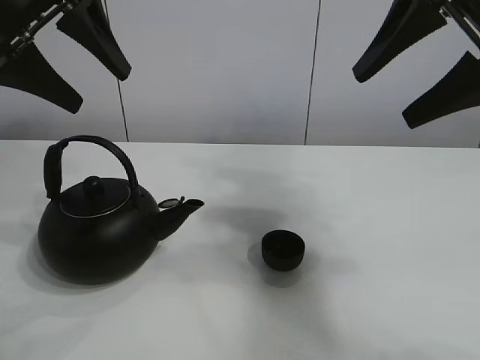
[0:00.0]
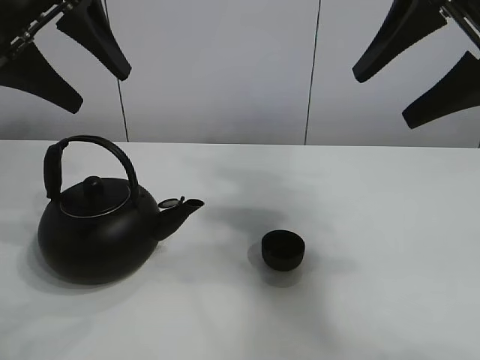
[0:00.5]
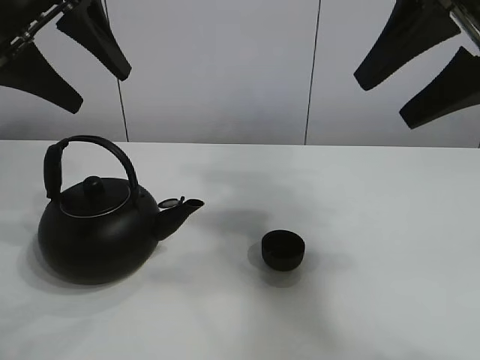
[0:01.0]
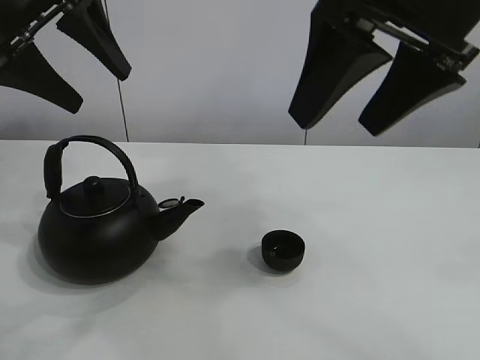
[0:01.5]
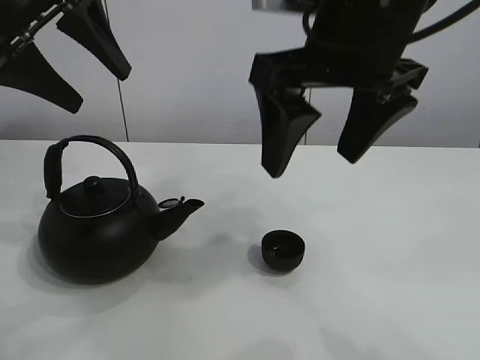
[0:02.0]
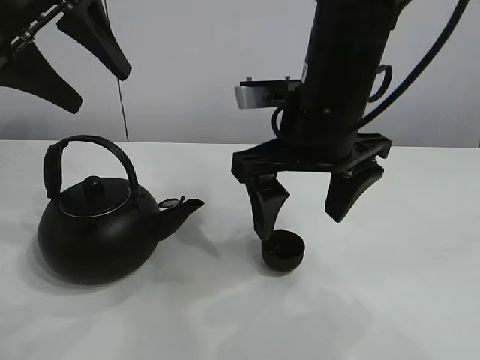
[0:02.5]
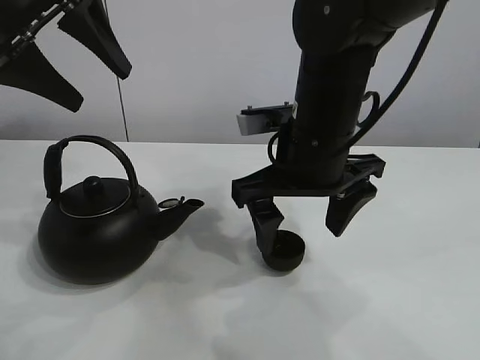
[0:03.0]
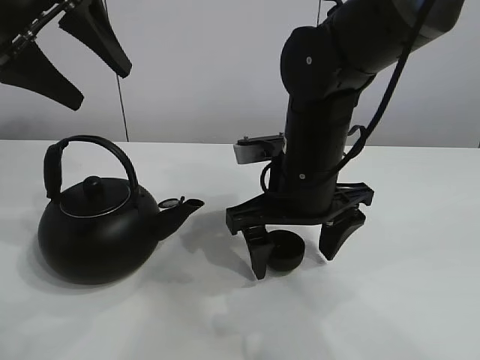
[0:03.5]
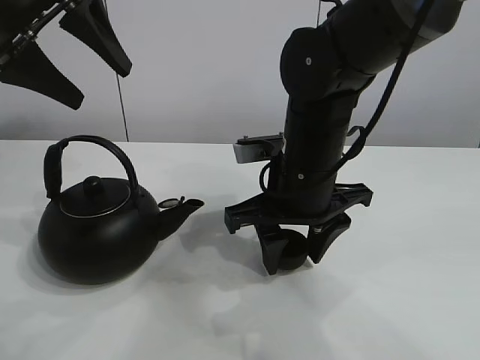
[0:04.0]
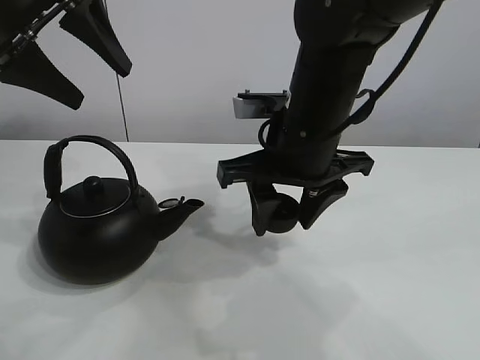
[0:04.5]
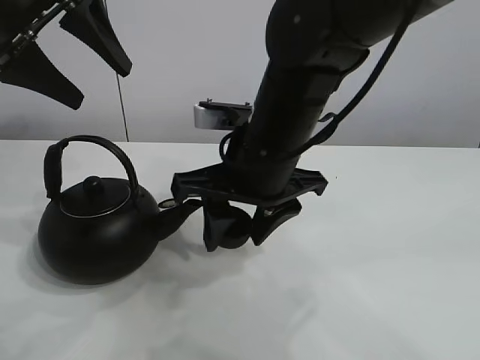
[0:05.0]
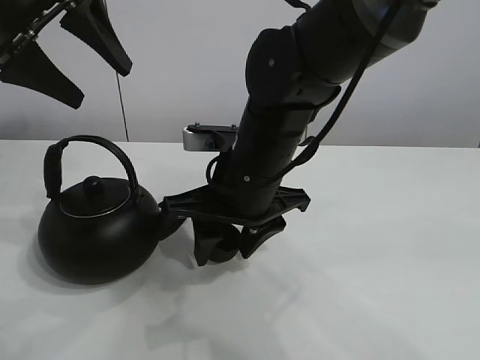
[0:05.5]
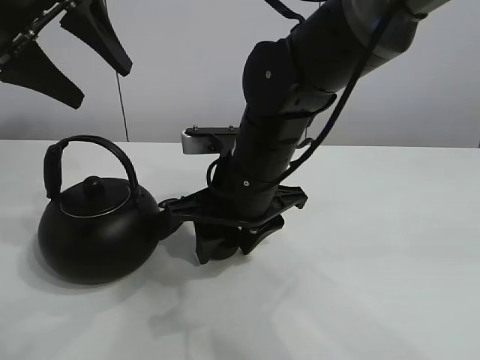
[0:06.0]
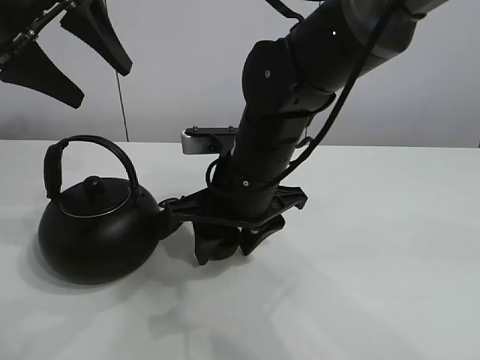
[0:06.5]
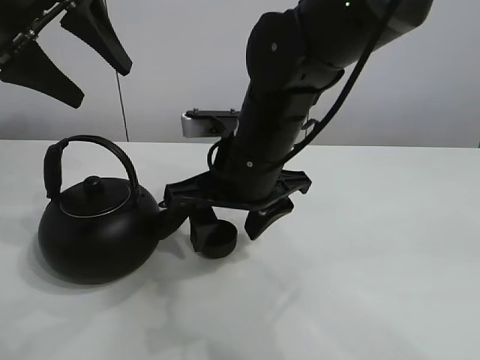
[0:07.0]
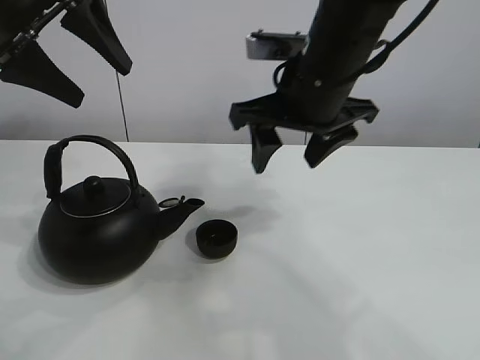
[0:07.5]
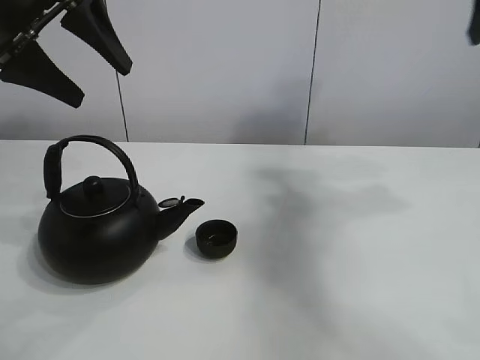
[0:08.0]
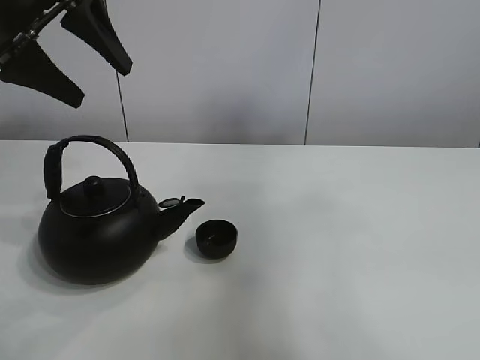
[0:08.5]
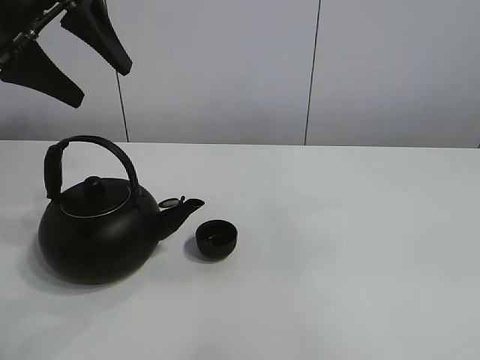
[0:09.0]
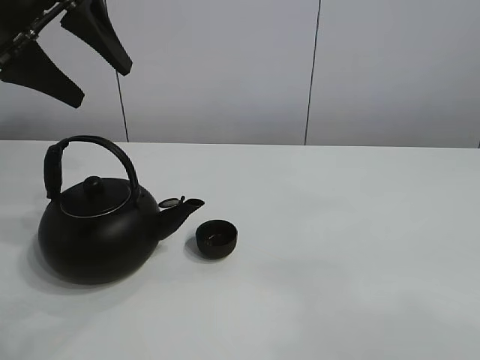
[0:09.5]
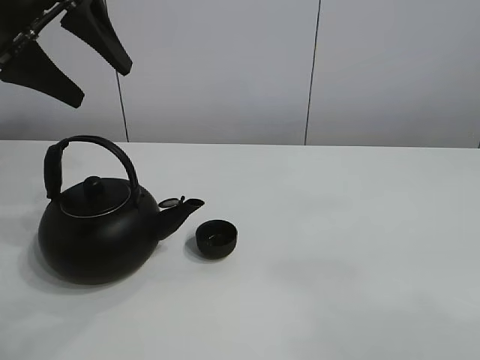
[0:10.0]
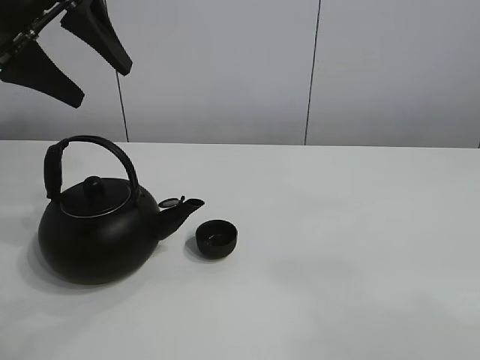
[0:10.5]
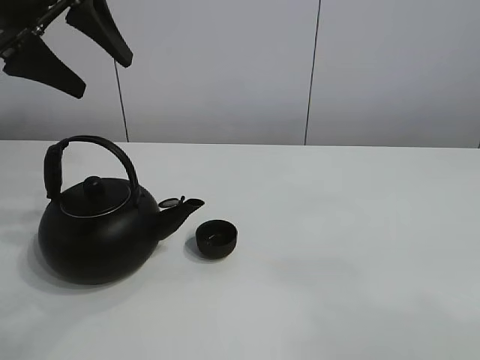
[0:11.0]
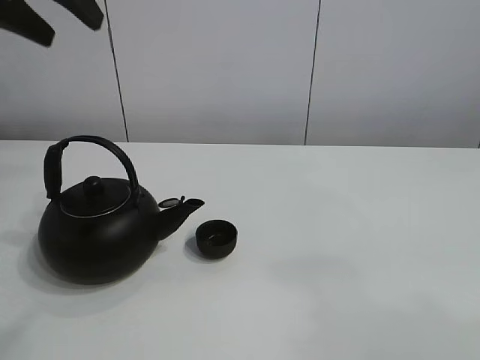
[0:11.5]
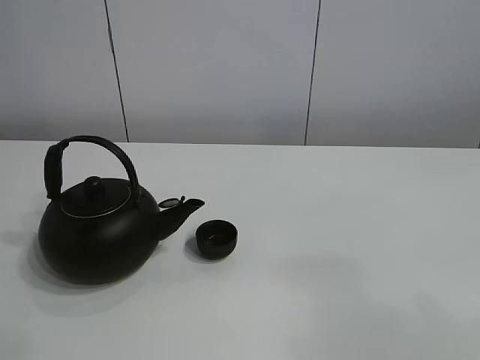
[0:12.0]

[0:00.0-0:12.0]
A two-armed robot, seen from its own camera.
Task of the whole recording: pour tea into the teacup.
Step, 0:00.0 to 0:04.0: Pick up the teacup with the right gripper.
Step, 0:04.5 to 0:06.5: Place the teacup in the center of view with the right gripper.
0:02.0 to 0:04.0: The right gripper heads downward, covering some 15 cm, and closes its fingers.
0:04.0 to 0:06.0: The right gripper travels to the left by roughly 5 cm.
0:06.0 to 0:08.0: The right gripper is displaced to the right and upward by about 35 cm, and opens its fingers.
0:08.0 to 0:10.0: The right gripper is displaced backward by approximately 35 cm.
0:10.0 to 0:12.0: The left gripper moves upward and backward, approximately 20 cm.

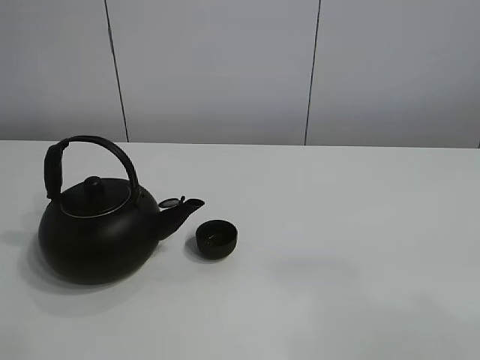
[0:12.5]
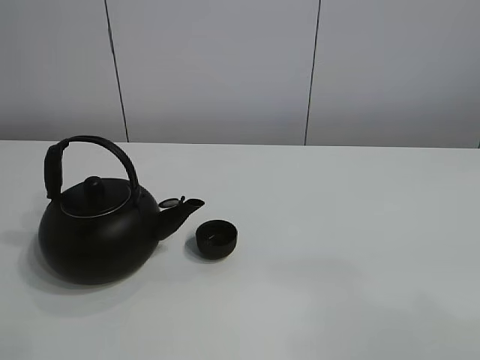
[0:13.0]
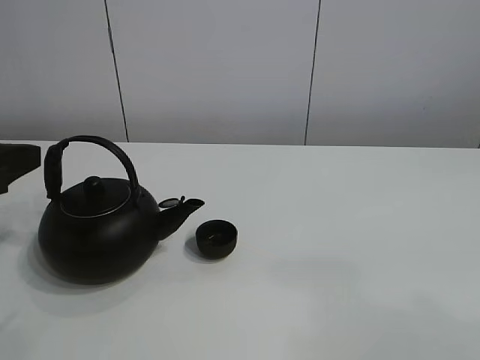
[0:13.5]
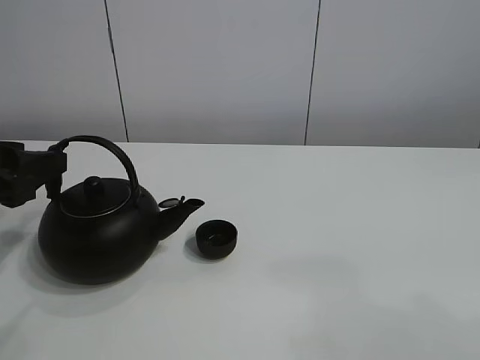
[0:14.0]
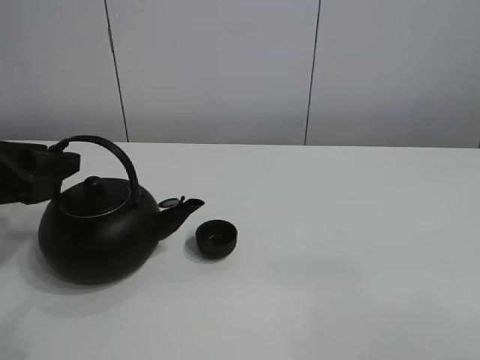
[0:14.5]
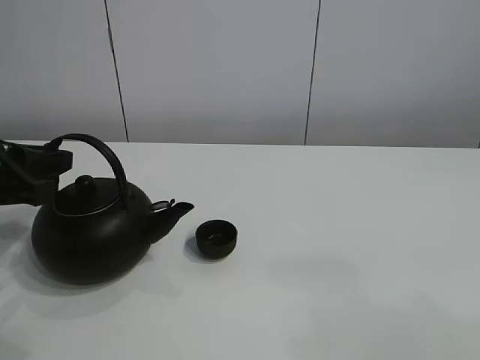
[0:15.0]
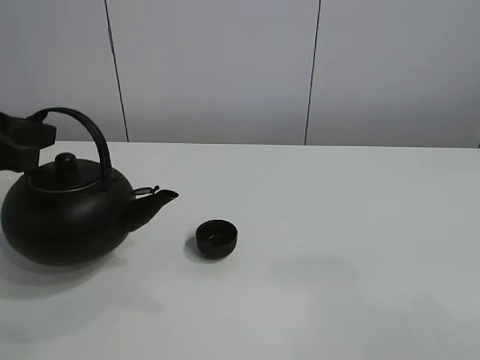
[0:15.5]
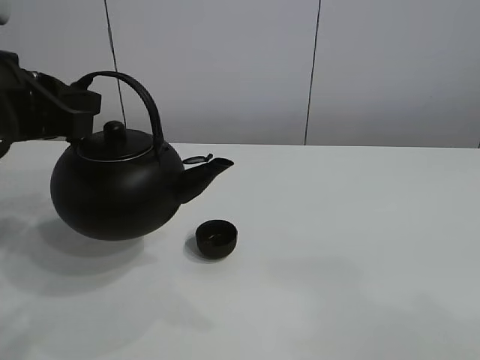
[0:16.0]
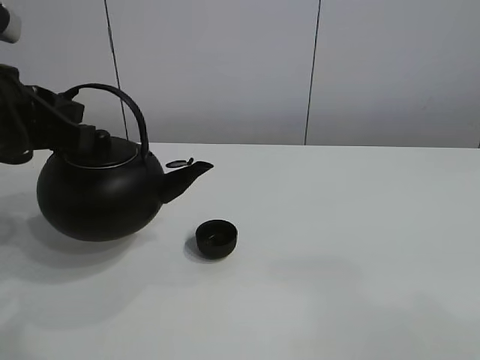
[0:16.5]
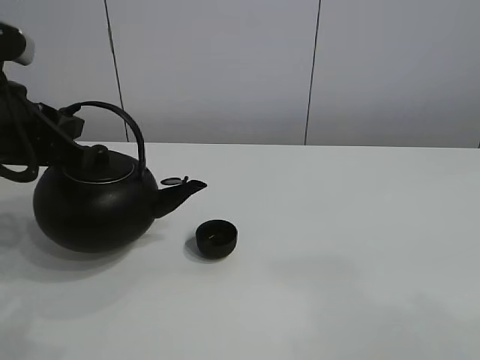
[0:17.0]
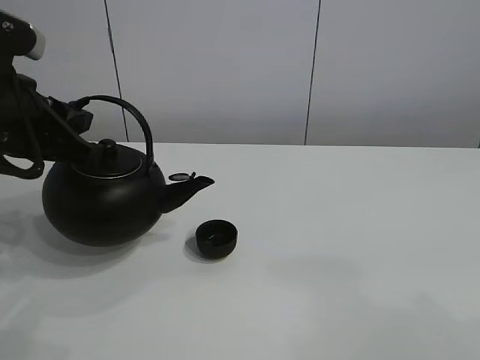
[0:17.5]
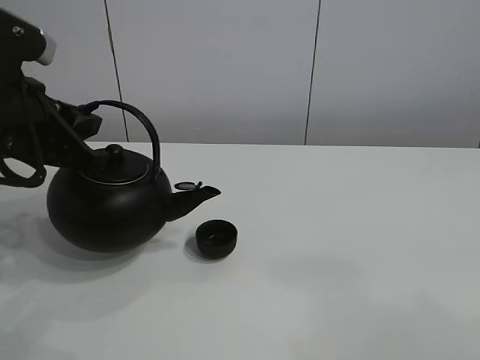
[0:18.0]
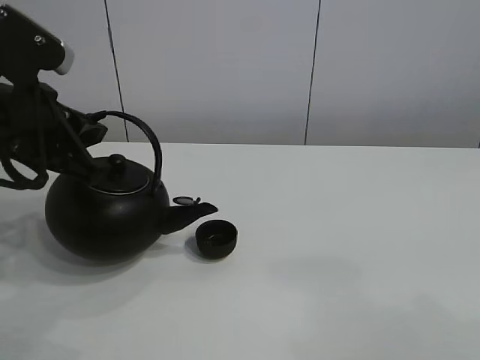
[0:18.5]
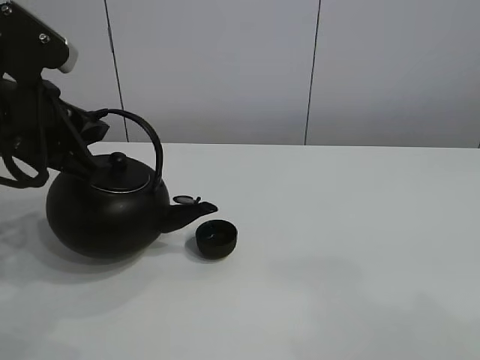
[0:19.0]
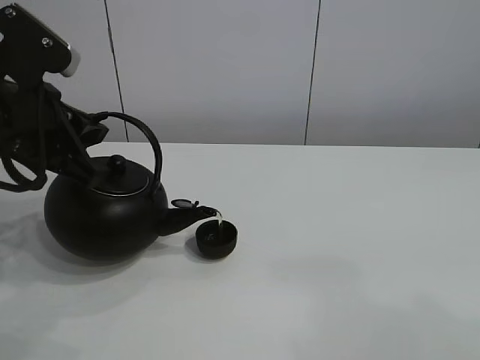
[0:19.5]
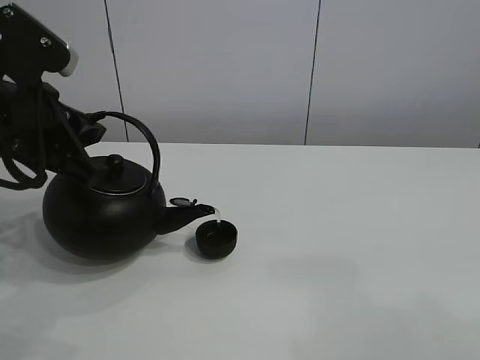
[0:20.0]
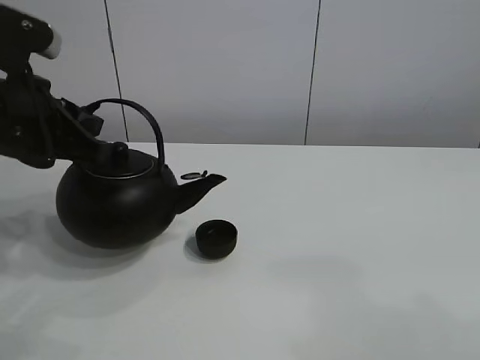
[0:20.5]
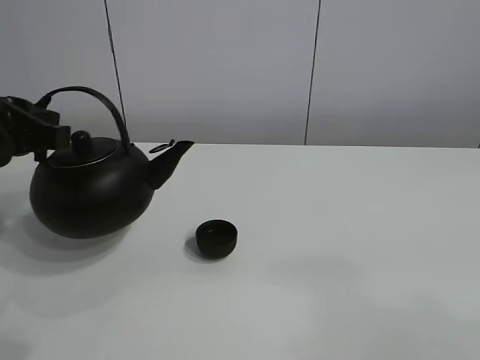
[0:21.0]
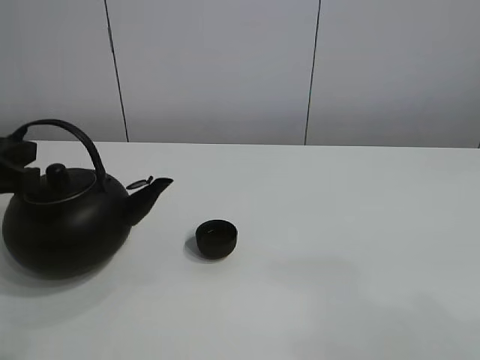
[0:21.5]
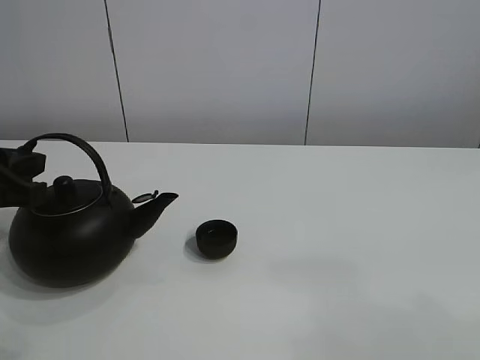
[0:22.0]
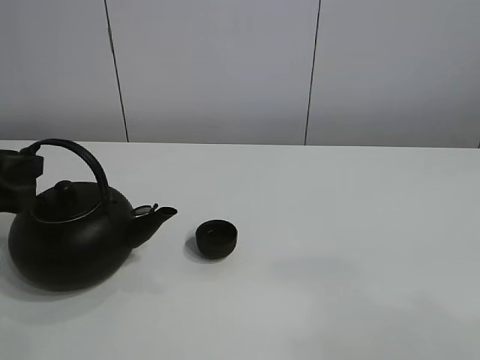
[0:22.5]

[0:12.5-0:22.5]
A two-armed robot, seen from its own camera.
Task of the whole recording: pour tea into the teacup.
Step, 0:12.5 to 0:15.0: Pick up the teapot with the left gripper.
Step, 0:15.5 to 0:20.0: Pour tea into the teacup with the left gripper.
0:12.5 to 0:14.5: The left gripper moves downward and forward, about 20 cm.
0:14.5 to 0:16.5: The left gripper shifts approximately 5 cm upward, and closes.
0:16.5 to 0:18.5: The grippers stay close to where they were, moving slightly.
0:18.5 to 0:20.5: The grippers stay close to where they were, moving slightly.
0:20.5 to 0:22.5: The left gripper goes about 5 cm to the left, and opens up.
